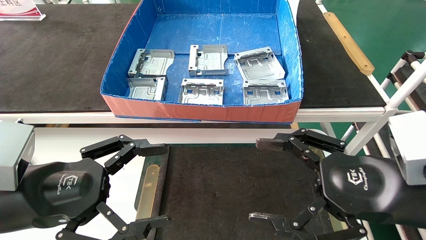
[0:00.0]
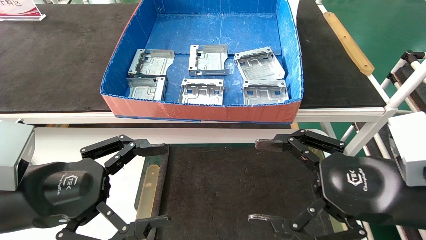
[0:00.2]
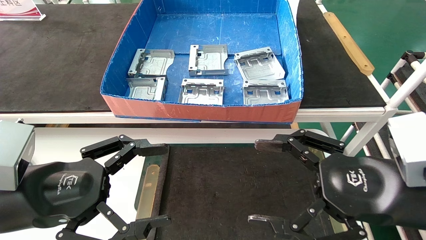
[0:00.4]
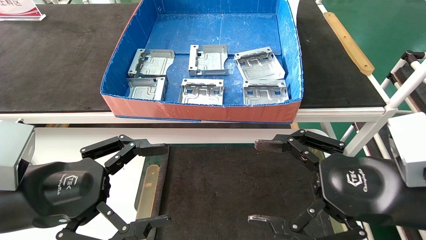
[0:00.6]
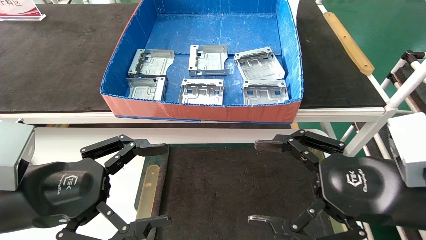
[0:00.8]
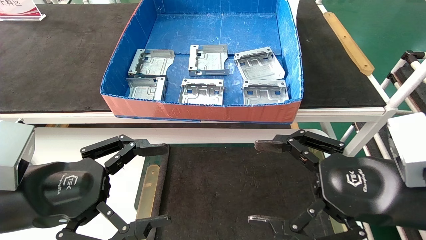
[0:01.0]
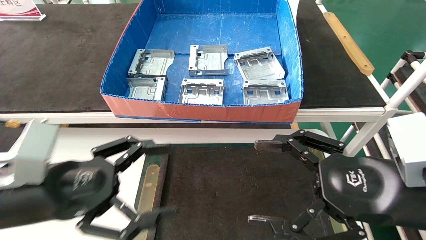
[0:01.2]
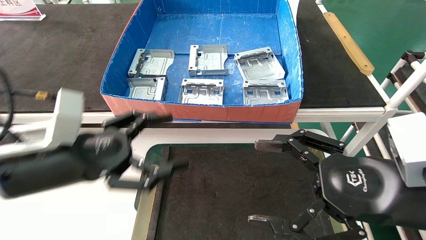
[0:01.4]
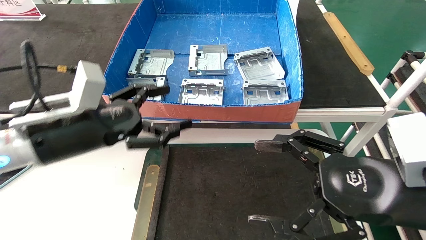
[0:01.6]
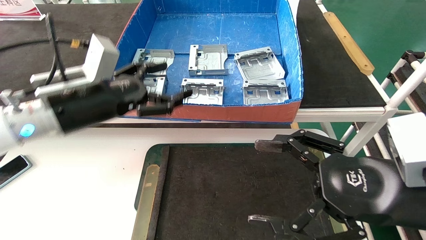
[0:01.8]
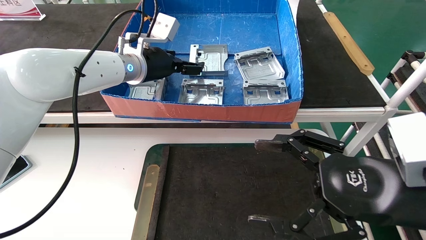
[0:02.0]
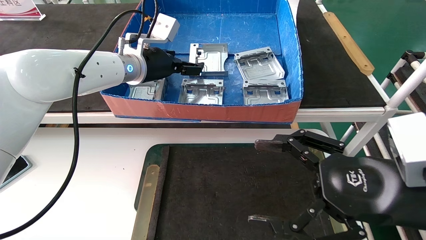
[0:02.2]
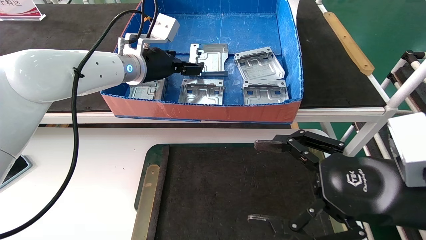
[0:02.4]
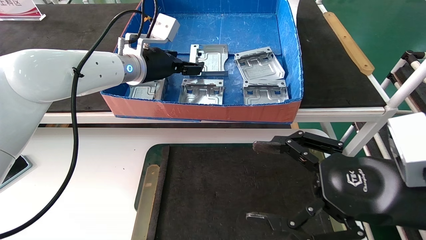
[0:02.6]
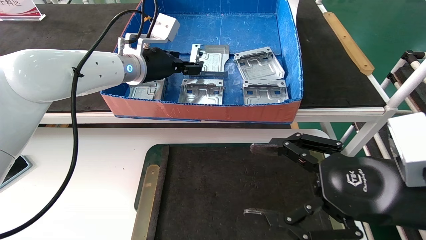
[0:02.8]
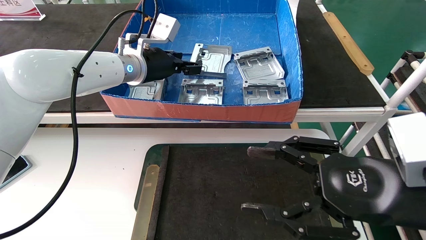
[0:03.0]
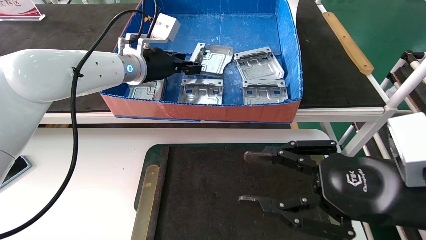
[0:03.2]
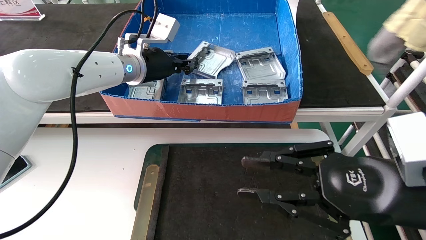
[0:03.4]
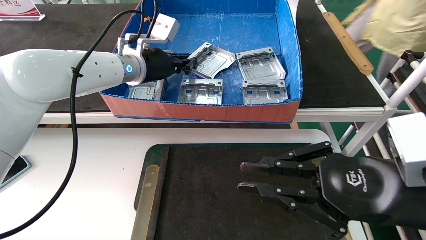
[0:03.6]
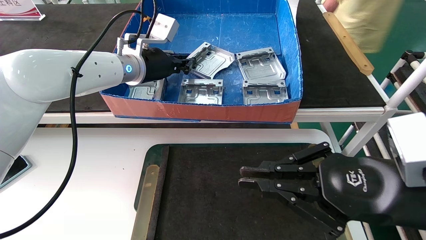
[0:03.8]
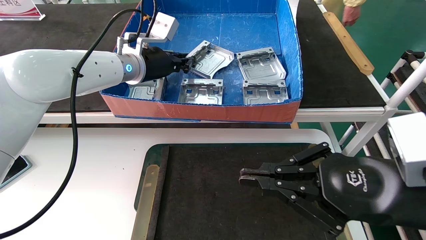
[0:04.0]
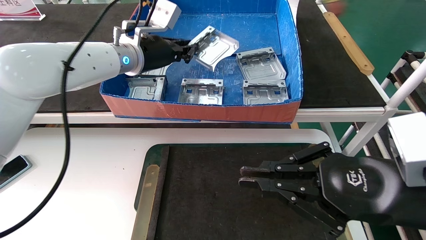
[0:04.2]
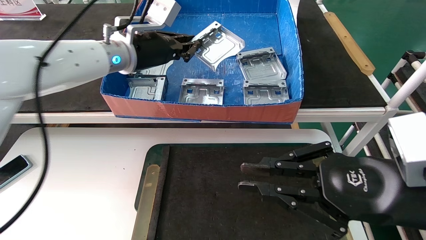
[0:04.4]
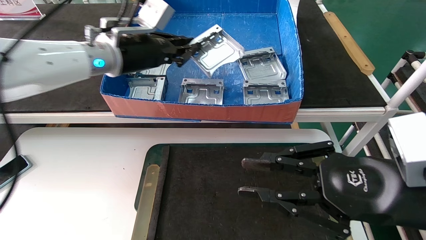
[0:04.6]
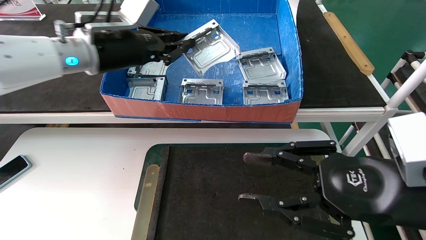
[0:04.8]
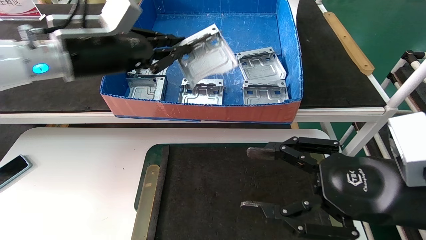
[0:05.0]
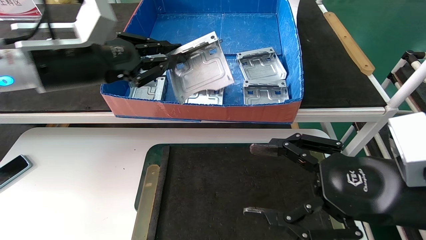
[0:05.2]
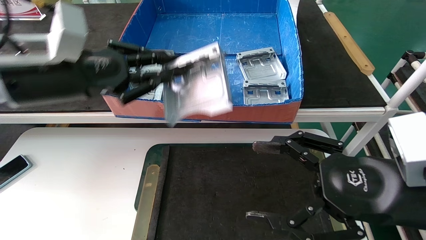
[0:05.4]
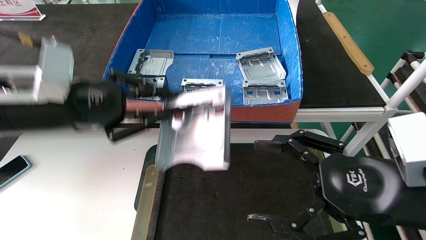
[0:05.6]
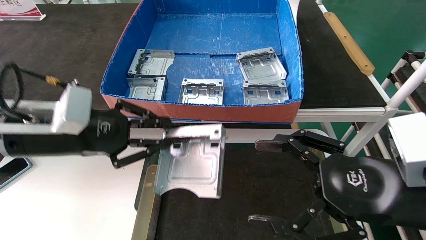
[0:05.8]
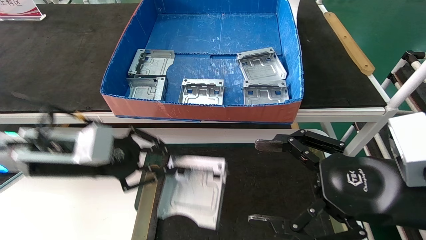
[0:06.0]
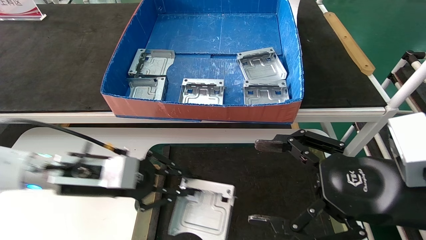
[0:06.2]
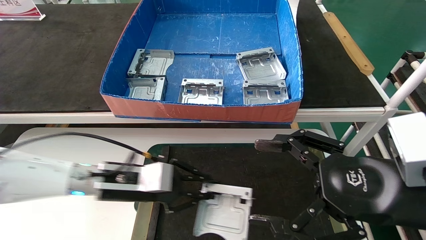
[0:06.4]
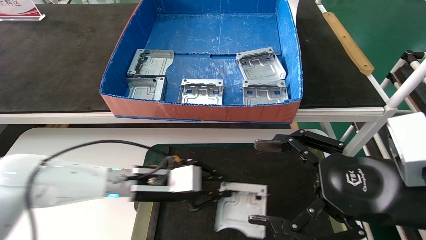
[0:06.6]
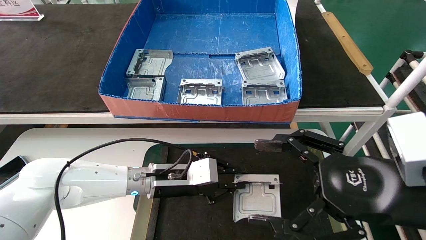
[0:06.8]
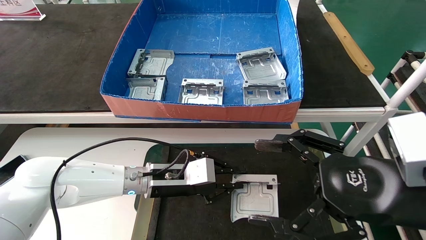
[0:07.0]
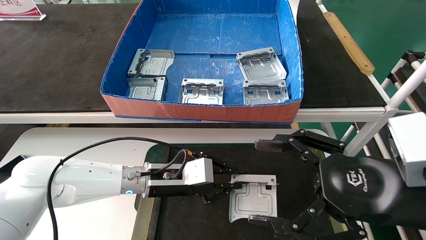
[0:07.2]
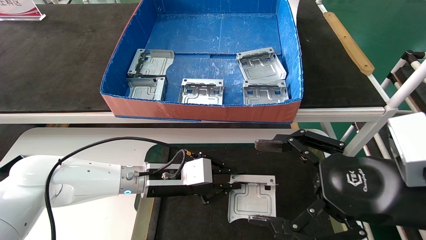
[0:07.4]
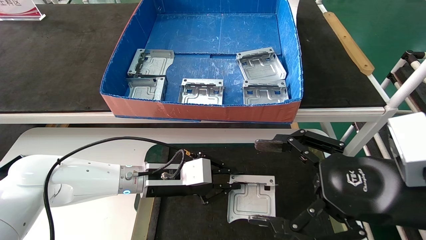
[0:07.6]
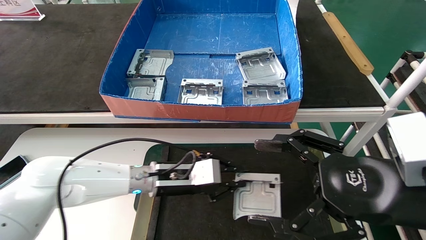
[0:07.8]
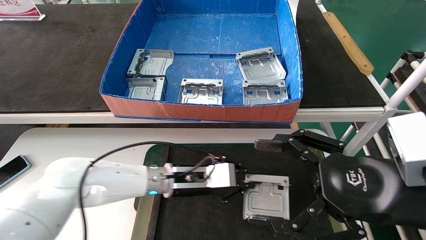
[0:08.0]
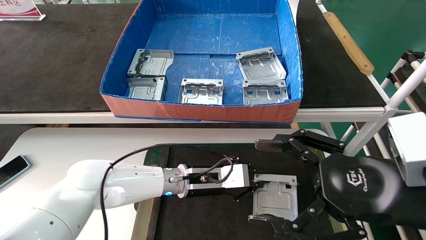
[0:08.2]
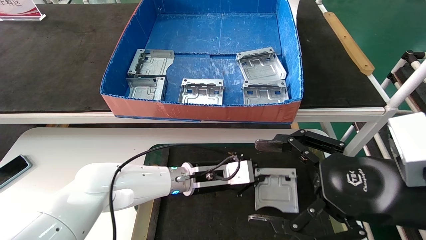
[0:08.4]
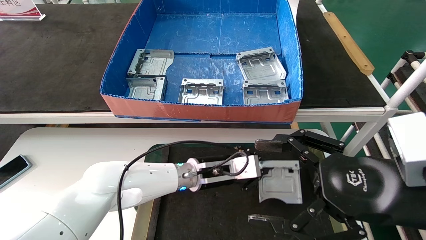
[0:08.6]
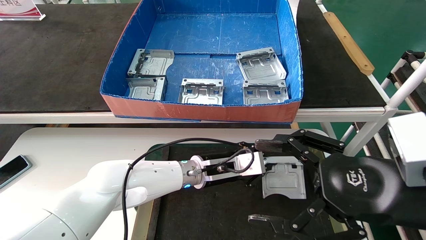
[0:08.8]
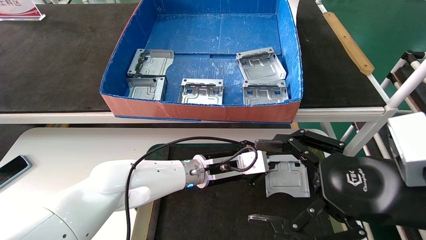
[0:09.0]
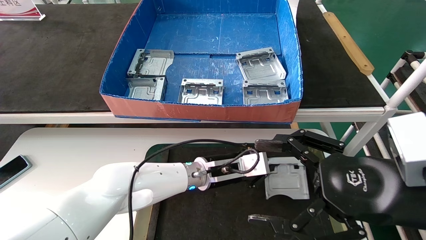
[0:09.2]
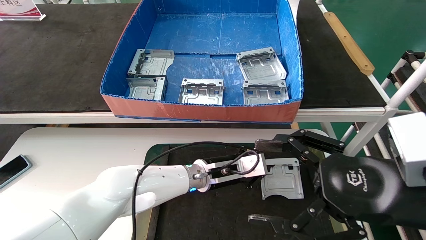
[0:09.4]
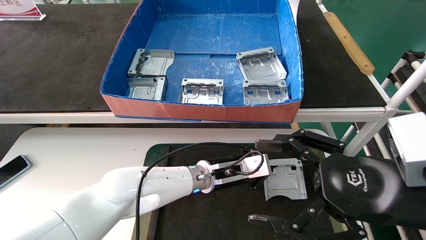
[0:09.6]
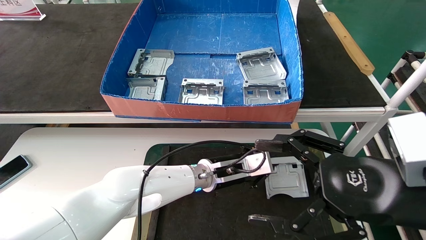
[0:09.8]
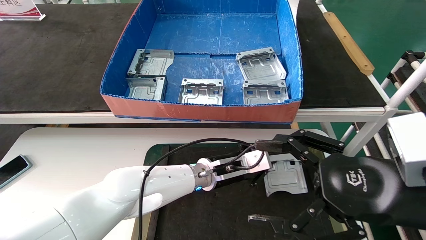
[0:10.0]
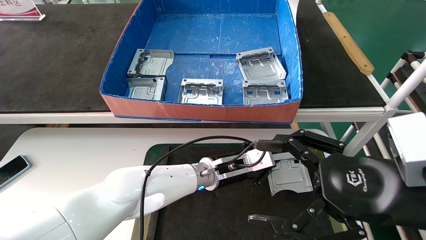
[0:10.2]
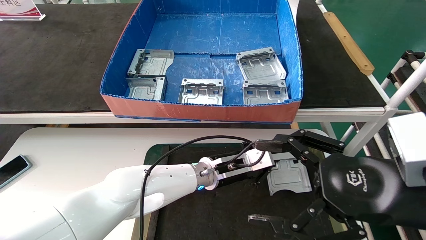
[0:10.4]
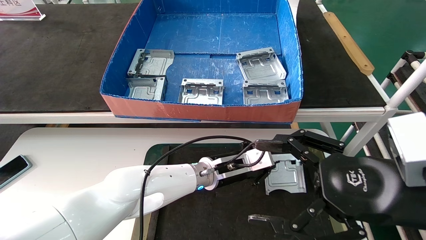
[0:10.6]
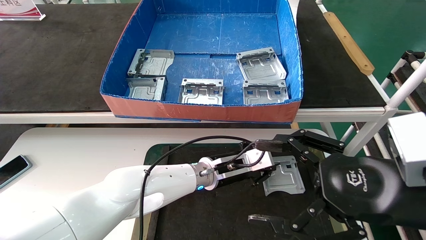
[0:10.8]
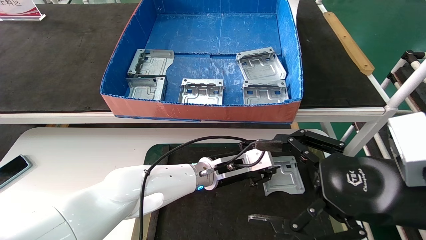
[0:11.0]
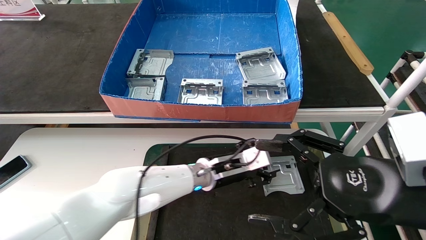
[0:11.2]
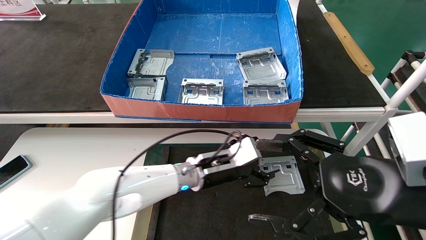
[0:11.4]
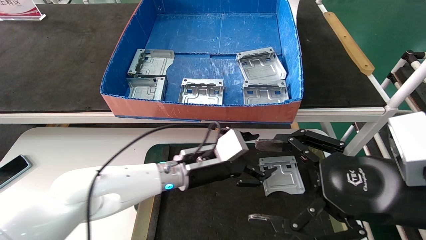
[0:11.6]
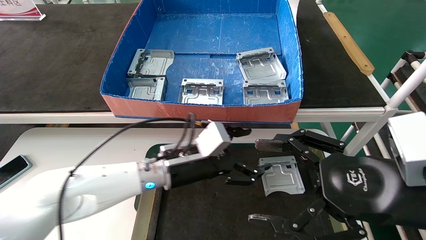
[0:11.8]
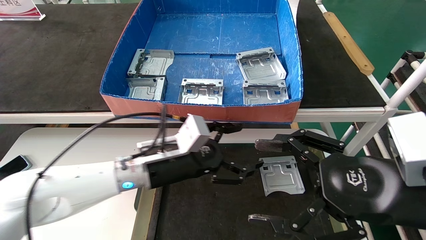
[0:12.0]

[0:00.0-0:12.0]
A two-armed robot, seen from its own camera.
Task of the whole recording: take the accessories out of the box and place them on the table.
Step, 0:01.6 to 0:05.0: Pick up the hard drive bracket from the feeding area.
Step, 0:05.2 to 0:12.0: Place the hard drive bracket into the box.
0:00.0 to 0:01.6: The left gripper shifts about 5 cm forward.
0:01.6 to 0:03.0: The left gripper heads forward, upward and to the right, covering some 25 cm.
0:04.4 to 0:06.0: The right gripper closes; the left gripper ends up approximately 5 cm from where it was, and closes up.
0:06.0 to 0:07.6: The right gripper opens its fingers. Meanwhile the left gripper shifts some 20 cm downward, backward and to the left.
0:07.6 to 0:09.0: The left gripper heads to the right, downward and forward, covering roughly 15 cm.
0:09.0 to 0:10.4: The left gripper shifts about 10 cm to the right.
0:10.4 to 0:12.0: The grippers make only small movements.
